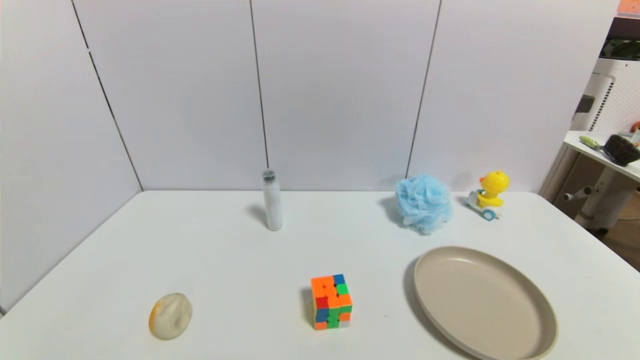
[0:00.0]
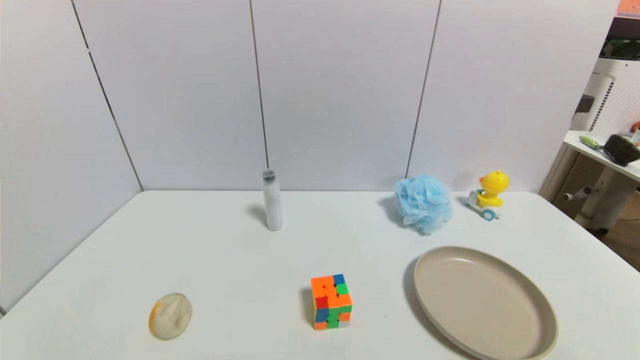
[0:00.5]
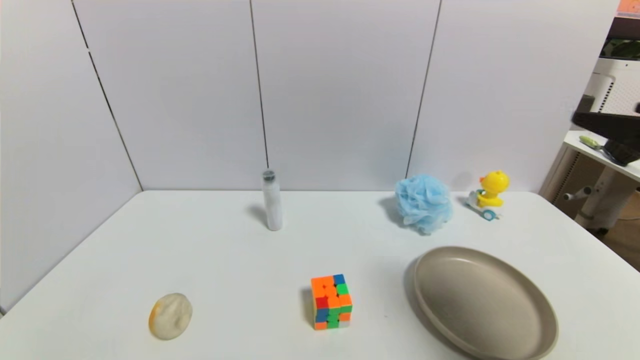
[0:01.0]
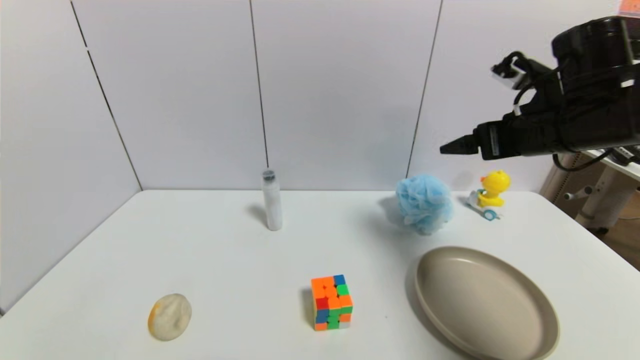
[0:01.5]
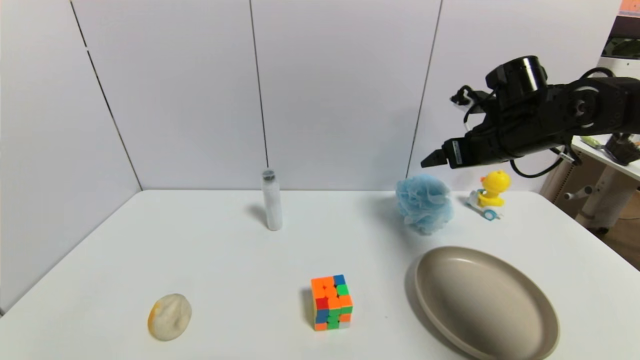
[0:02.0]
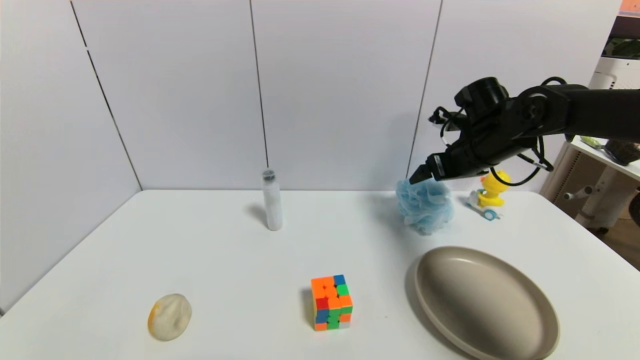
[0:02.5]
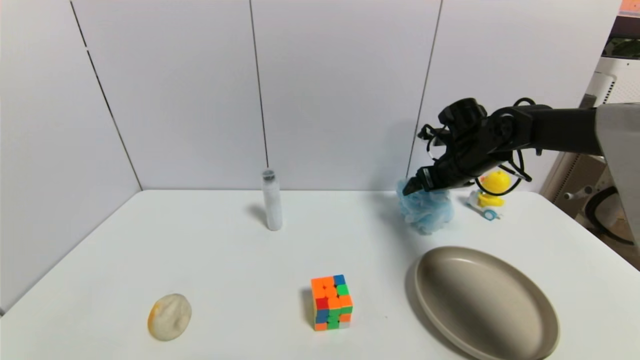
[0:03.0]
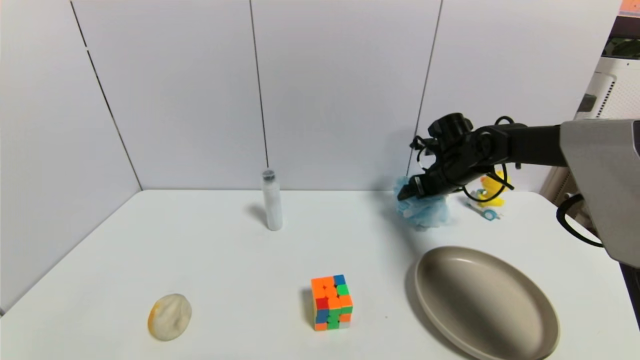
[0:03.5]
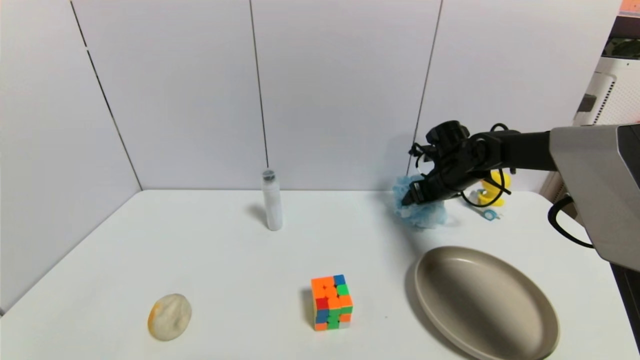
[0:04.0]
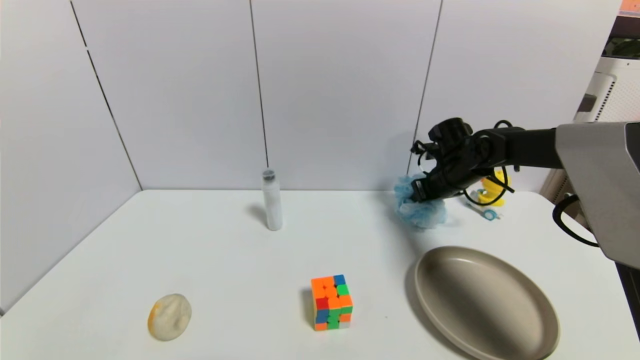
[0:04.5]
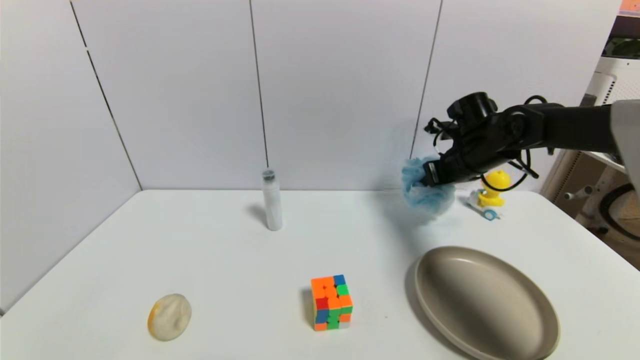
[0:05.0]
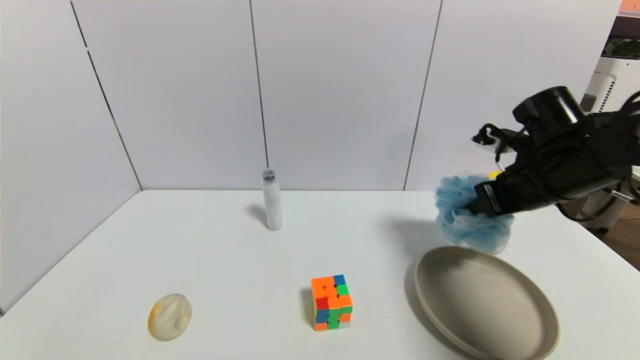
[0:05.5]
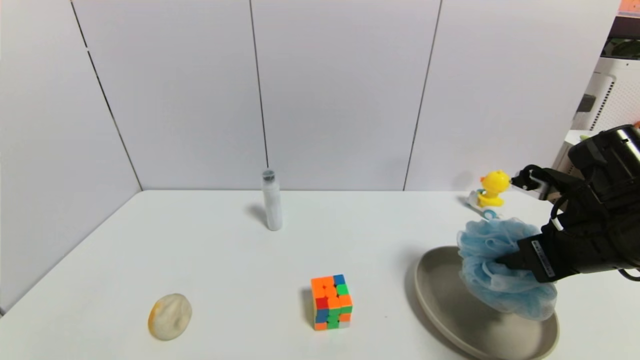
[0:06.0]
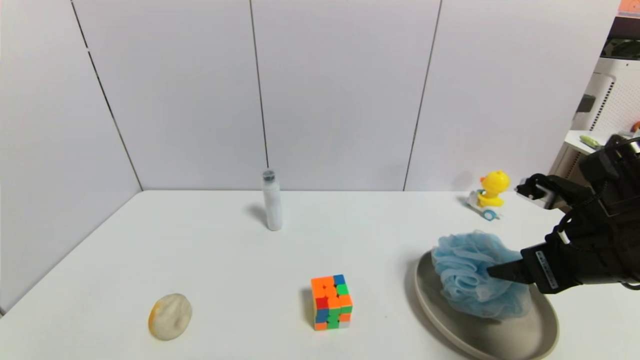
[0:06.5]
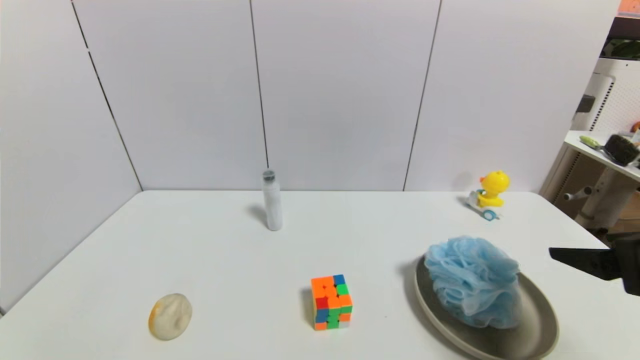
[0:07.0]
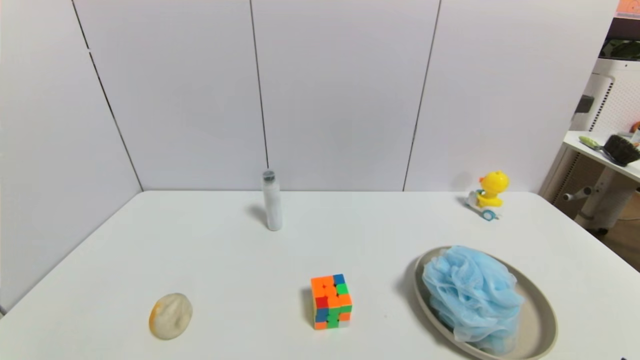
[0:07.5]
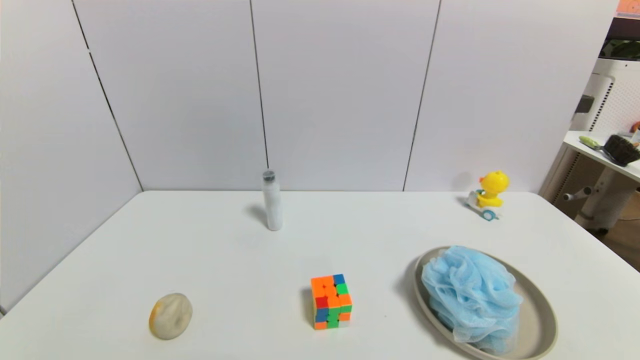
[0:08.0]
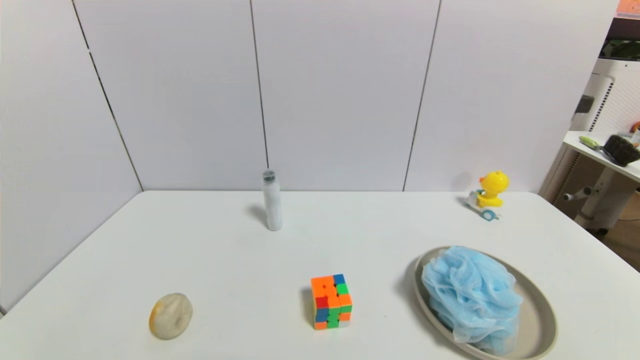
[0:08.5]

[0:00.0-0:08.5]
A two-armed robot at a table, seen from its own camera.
Task of the whole recording: use a gripper to pick the target object and place on the brown plate.
Step, 0:00.0 to 0:04.5: Grasp the shower sphere with the right gripper.
Step, 0:05.0 to 0:06.5: Place the shower sphere on the brown plate with the right gripper.
0:00.0 to 0:02.0: The right gripper goes roughly 40 cm forward.
0:02.0 to 0:04.0: The right gripper travels downward and forward by some 15 cm, and closes its fingers.
0:04.0 to 0:06.5: The right gripper is displaced backward by some 25 cm, and closes, then opens again.
0:06.5 to 0:08.5: The right gripper goes approximately 25 cm backward and downward.
